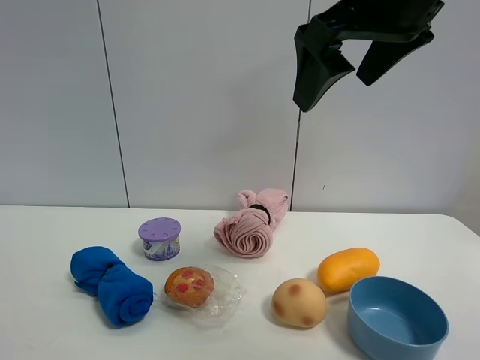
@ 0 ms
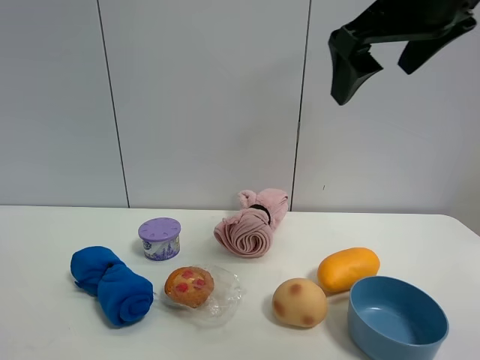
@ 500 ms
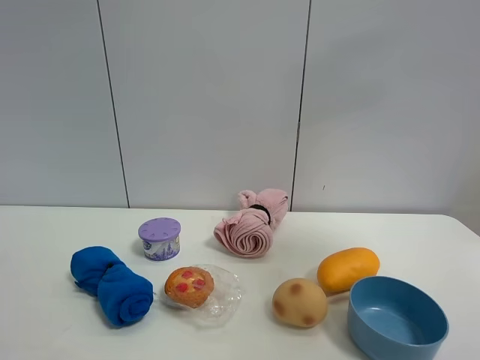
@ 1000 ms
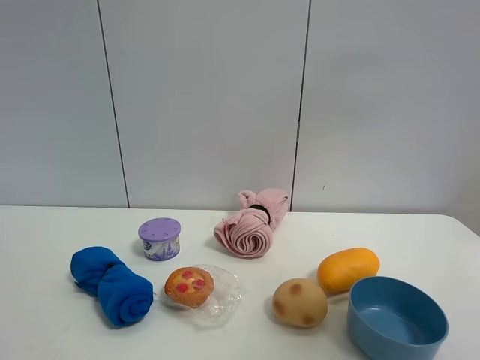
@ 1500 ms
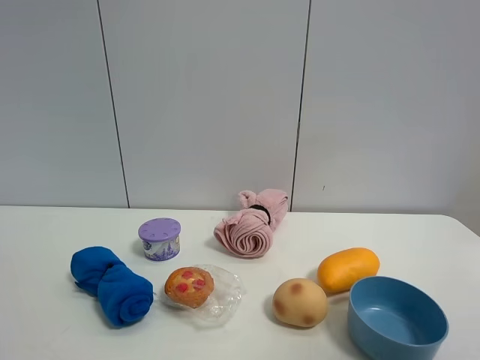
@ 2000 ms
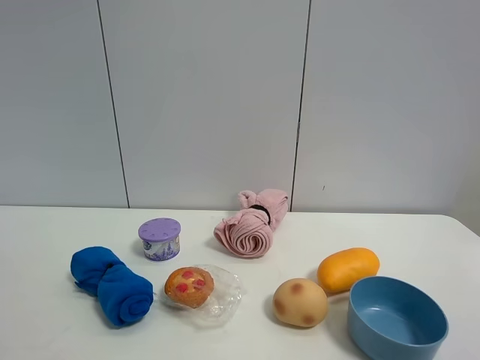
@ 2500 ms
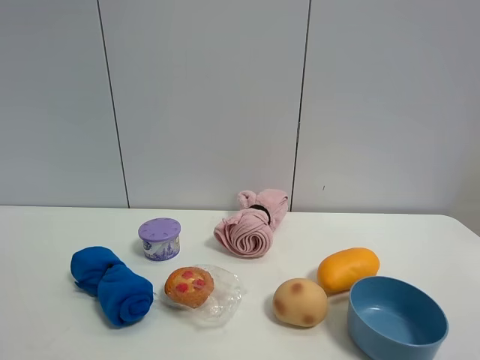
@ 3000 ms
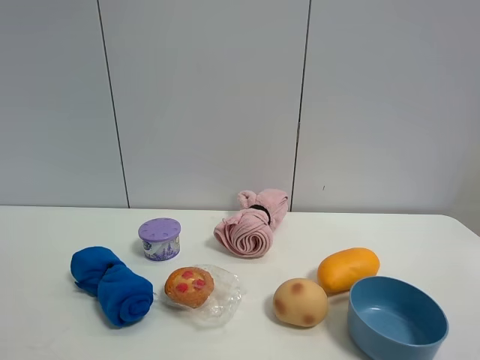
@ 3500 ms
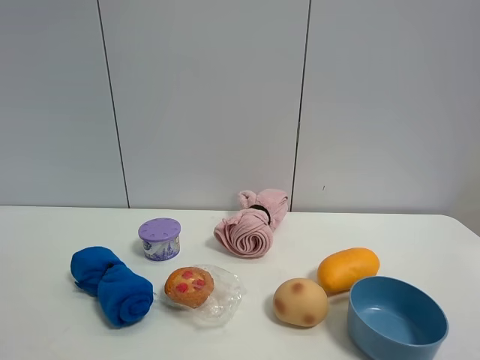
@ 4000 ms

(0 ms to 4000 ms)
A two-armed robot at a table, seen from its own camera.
Task of the whole recording: the gripper move the object.
0 ms - 2000 ms: The right gripper goes roughly 30 cm backward and to the right.

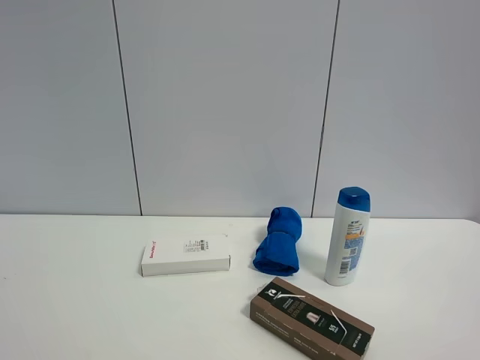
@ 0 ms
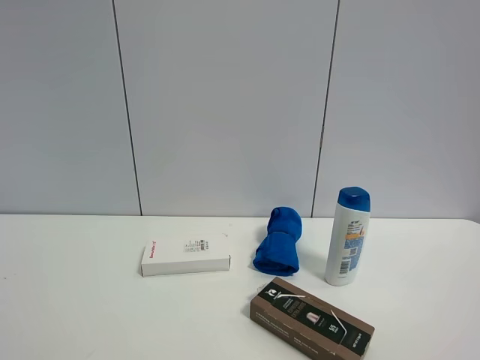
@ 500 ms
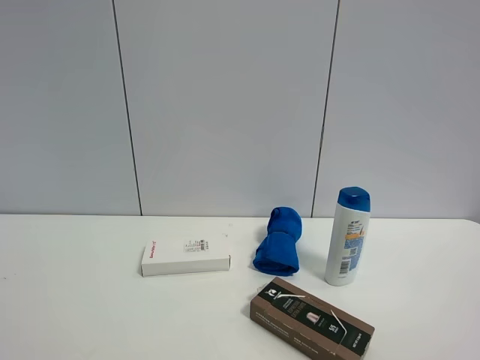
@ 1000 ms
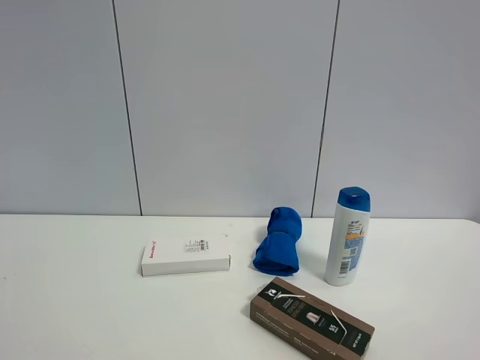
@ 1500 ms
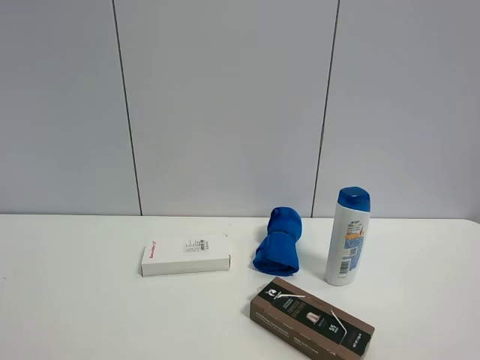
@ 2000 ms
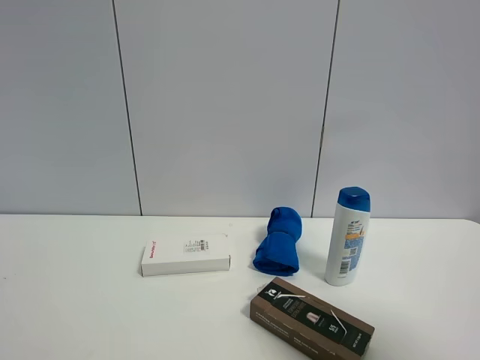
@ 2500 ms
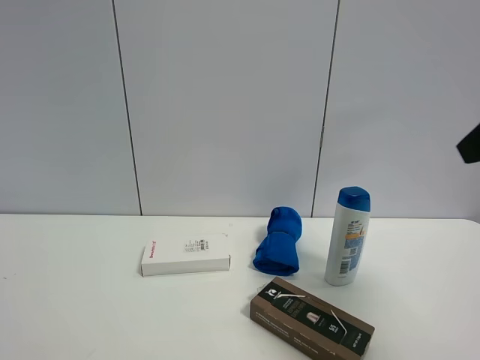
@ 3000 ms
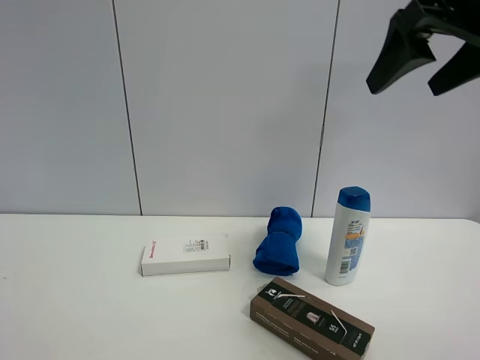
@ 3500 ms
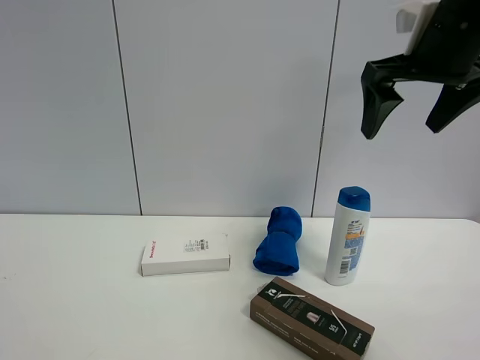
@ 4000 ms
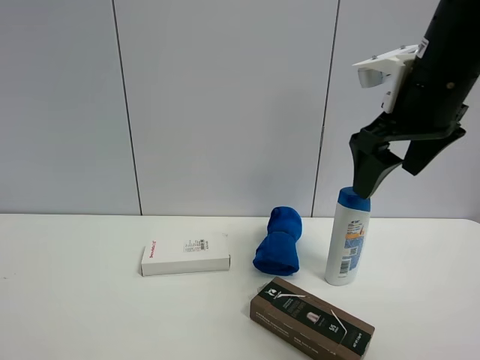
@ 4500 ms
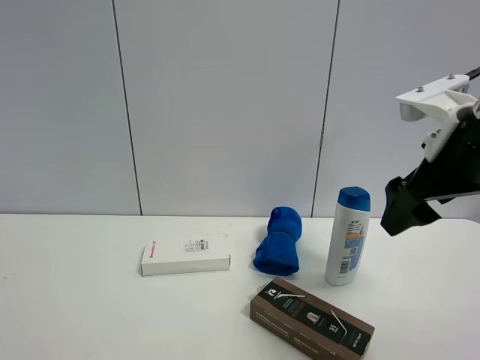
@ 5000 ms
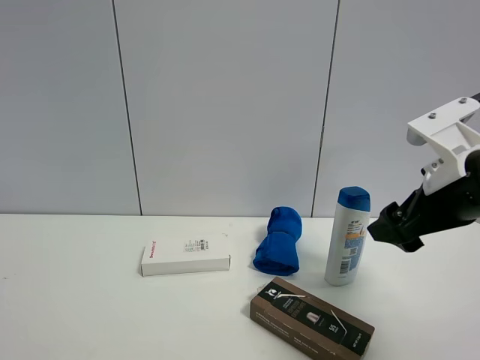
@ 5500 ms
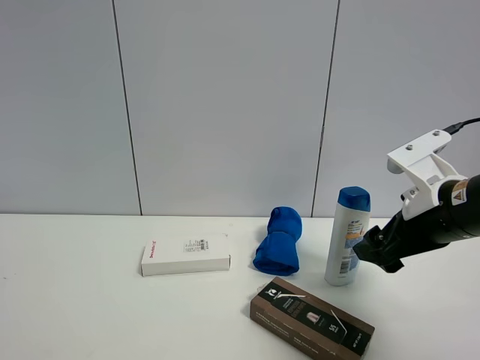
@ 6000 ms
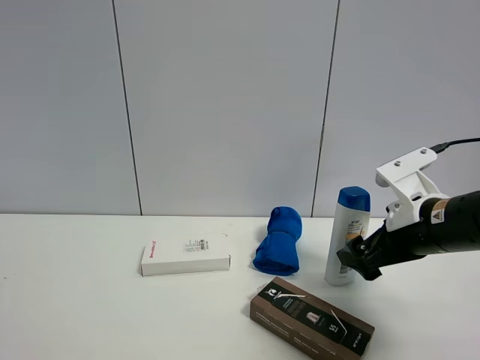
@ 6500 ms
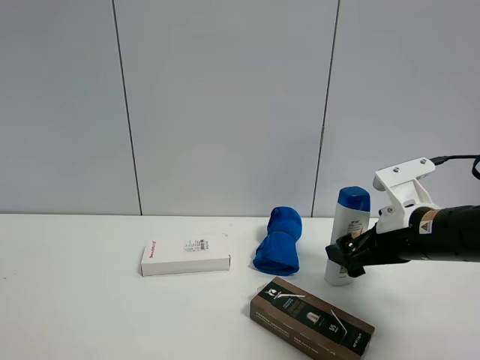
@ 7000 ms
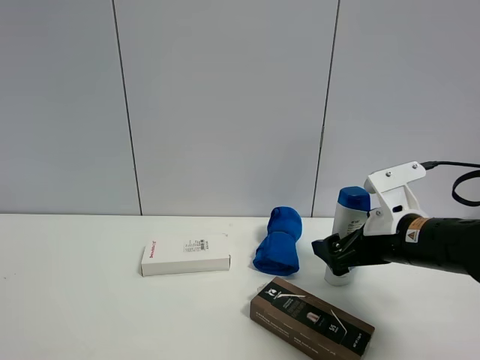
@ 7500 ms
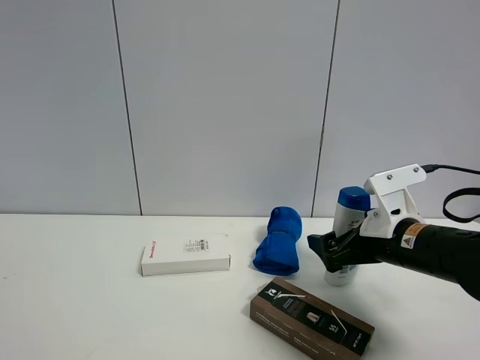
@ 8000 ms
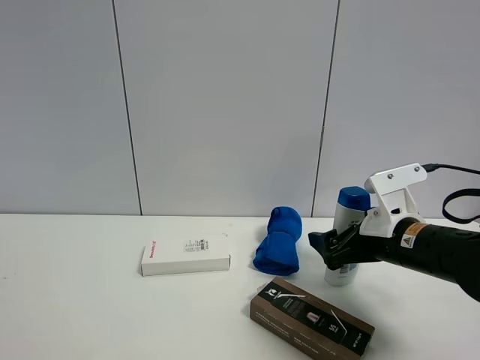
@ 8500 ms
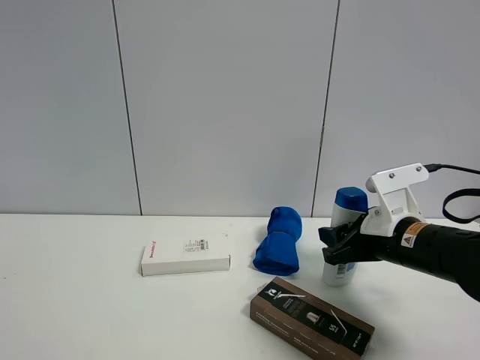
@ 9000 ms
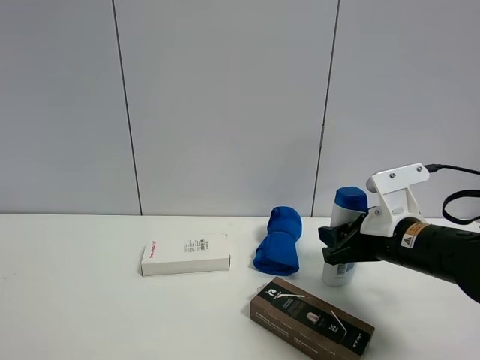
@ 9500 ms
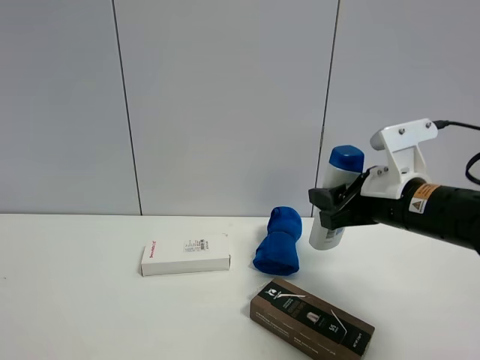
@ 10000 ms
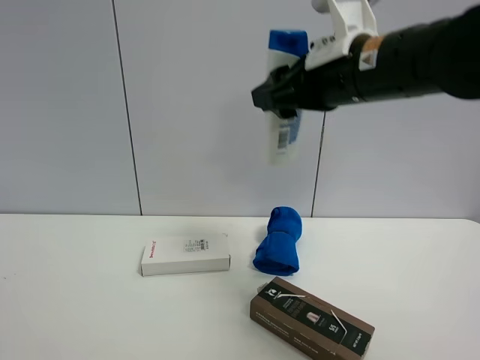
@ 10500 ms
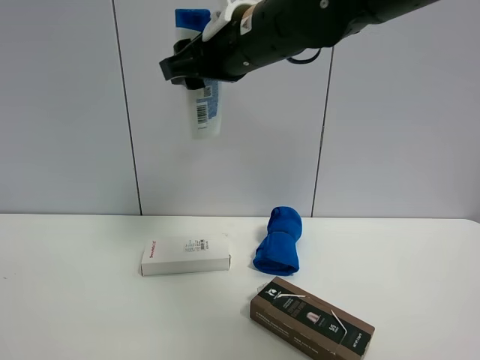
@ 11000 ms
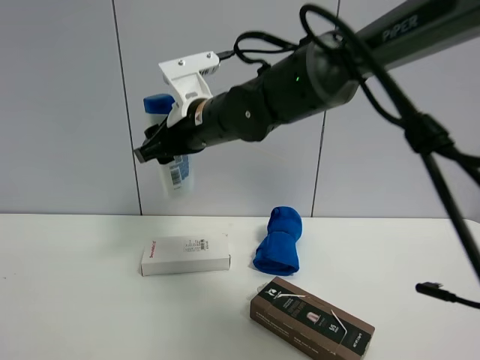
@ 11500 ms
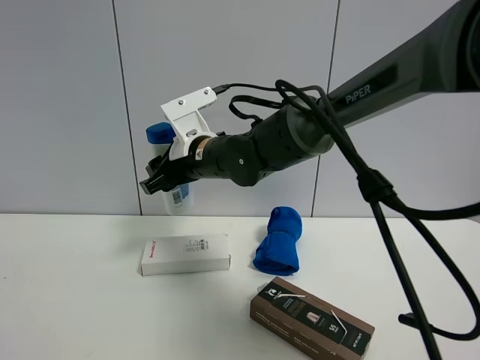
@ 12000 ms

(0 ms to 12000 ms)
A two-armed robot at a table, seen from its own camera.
Task of the whole recording: the gripper move the object.
Step, 0 ms - 9000 ms: Grasp the shampoo with the right gripper.
2000 ms - 4000 ms: The right gripper heads forward, covering roughly 35 cm, and opens its fingers.
4000 ms - 6000 ms: The right gripper travels downward by some 20 cm.
6000 ms - 8000 ms: The right gripper moves downward, some 5 cm.
8000 ms - 10000 ms: The right gripper moves upward, some 5 cm, and closes.
10000 ms - 12000 ms: The right gripper shifts some 25 cm to the left and forward.

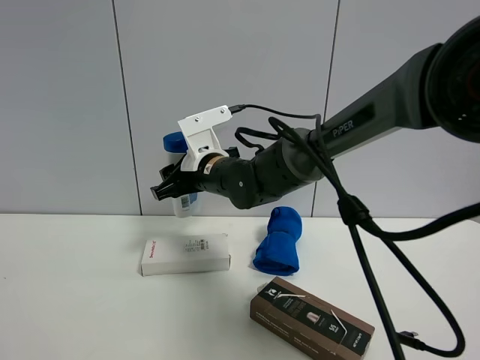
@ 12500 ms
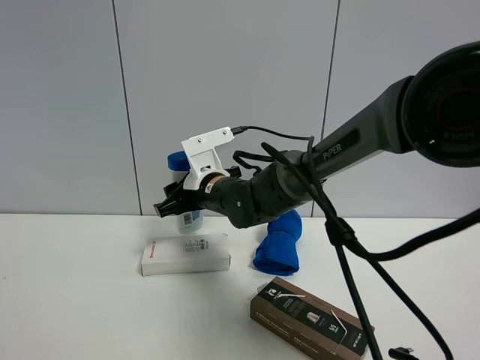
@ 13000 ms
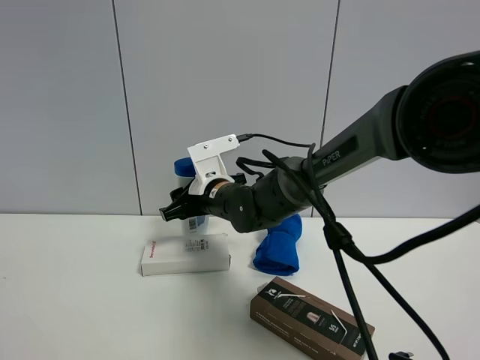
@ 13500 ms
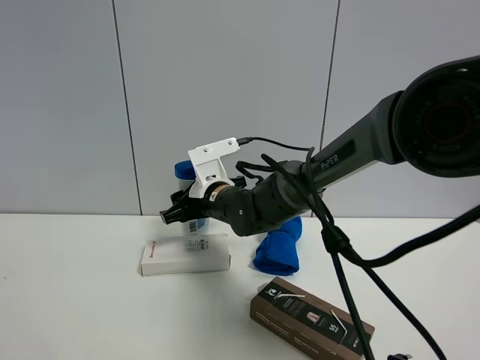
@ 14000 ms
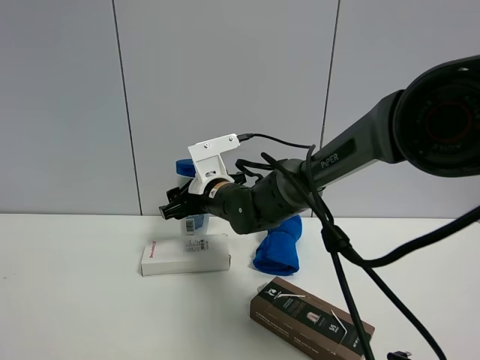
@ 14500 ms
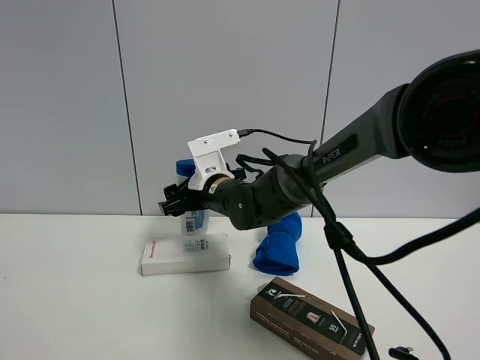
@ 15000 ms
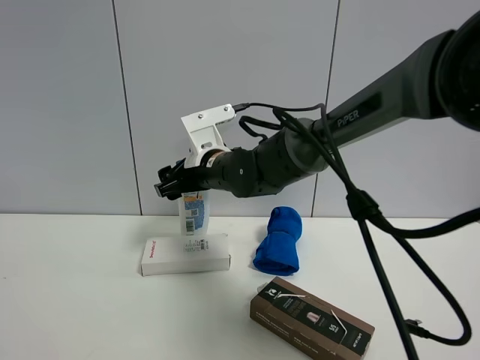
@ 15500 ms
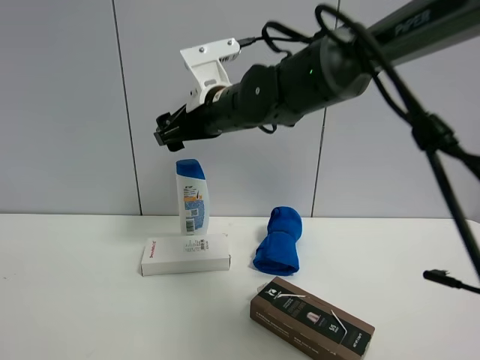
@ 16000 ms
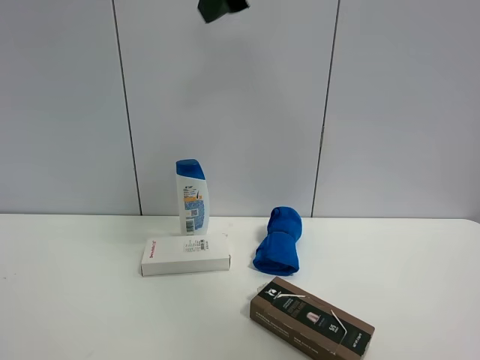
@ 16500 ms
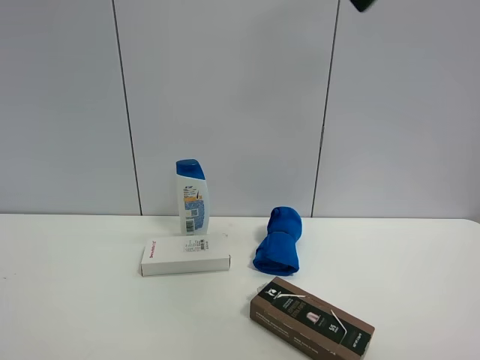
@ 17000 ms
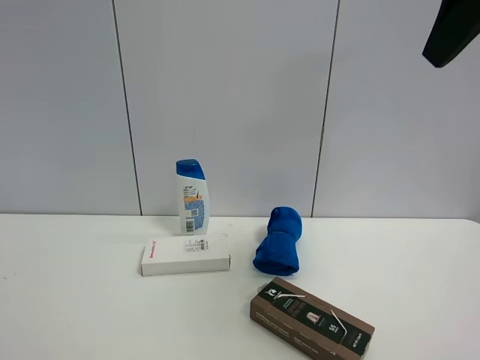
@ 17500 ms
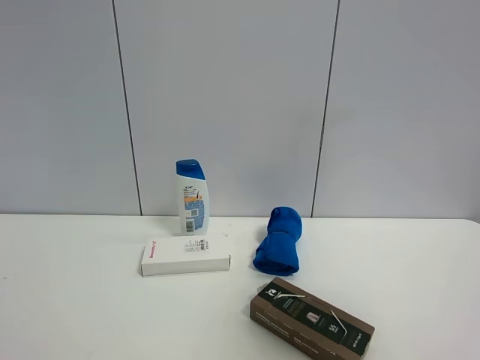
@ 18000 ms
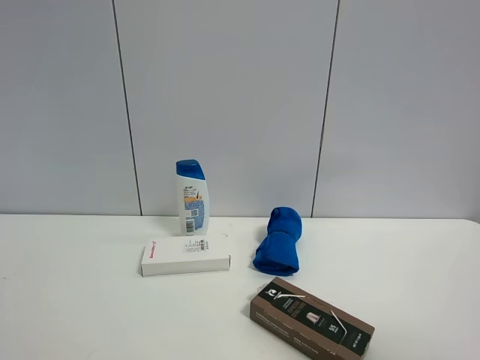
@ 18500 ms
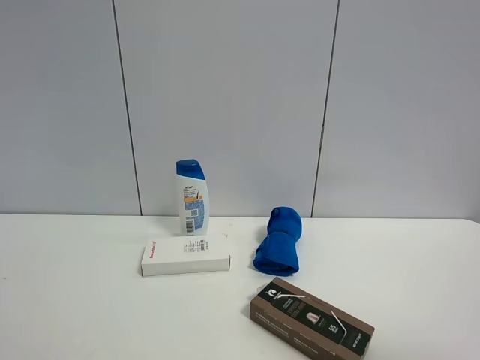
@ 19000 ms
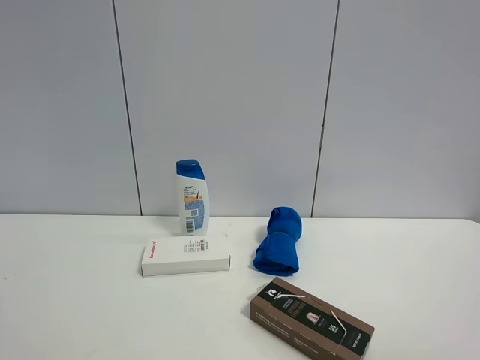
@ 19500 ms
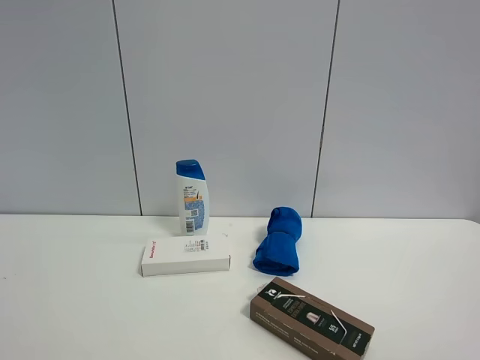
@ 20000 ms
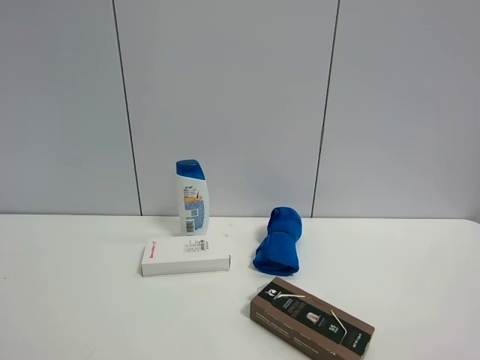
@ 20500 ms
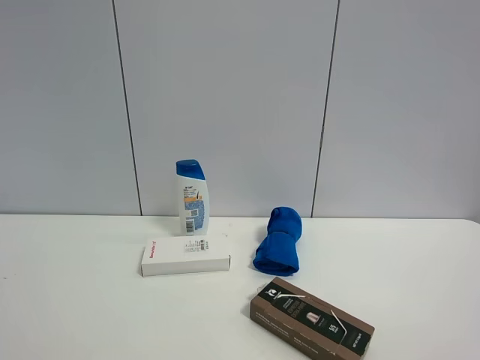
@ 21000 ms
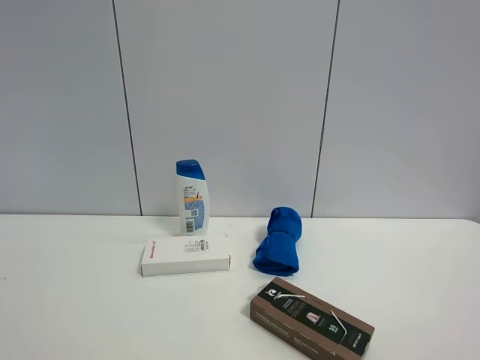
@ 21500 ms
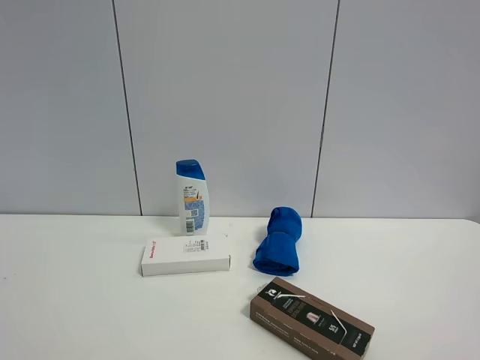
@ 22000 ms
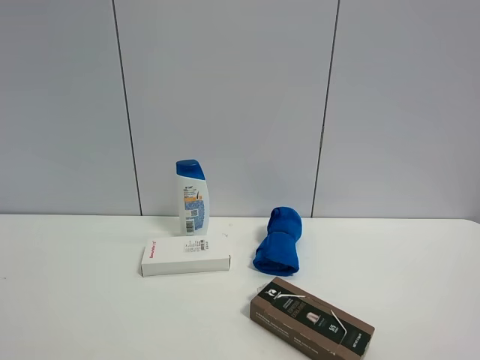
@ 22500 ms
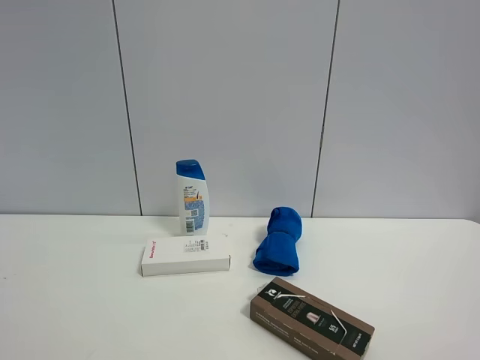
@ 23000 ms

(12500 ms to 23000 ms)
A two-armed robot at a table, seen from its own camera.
Task of the whole recording: the gripper move the object.
Step, 12500 ms - 15000 ms: Place the shampoo on the table with the right gripper.
14500 ms - 16500 ms: The right gripper shifts approximately 35 cm upward.
16500 ms - 19000 ms: The right gripper goes roughly 40 cm backward, to the right and downward.
21000 ms - 23000 ms: The two grippers keep their place.
